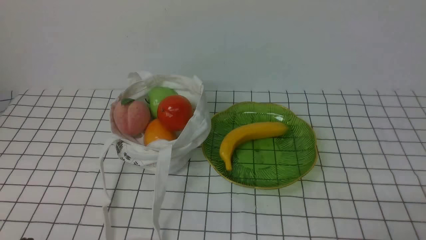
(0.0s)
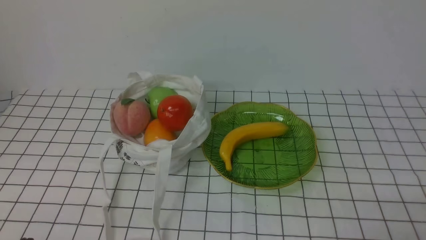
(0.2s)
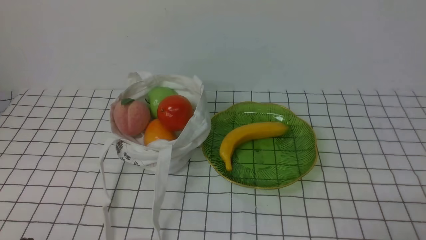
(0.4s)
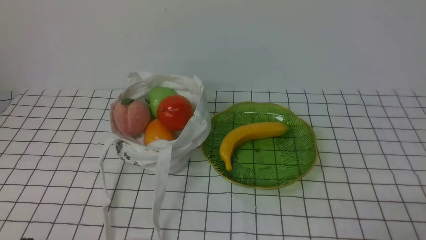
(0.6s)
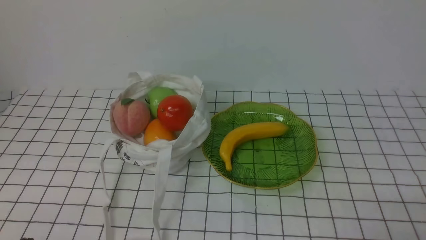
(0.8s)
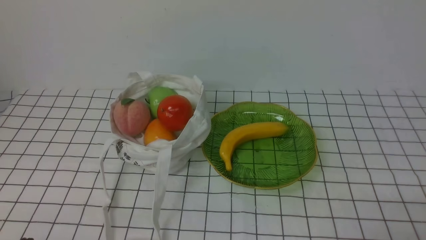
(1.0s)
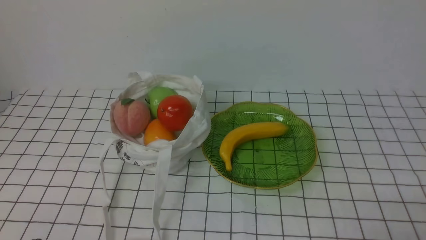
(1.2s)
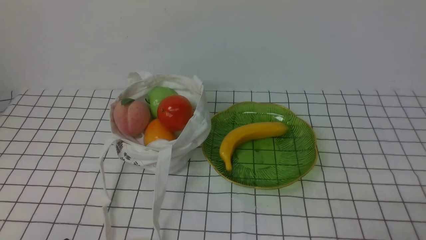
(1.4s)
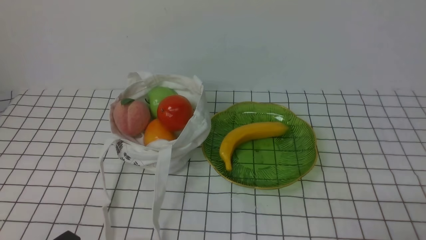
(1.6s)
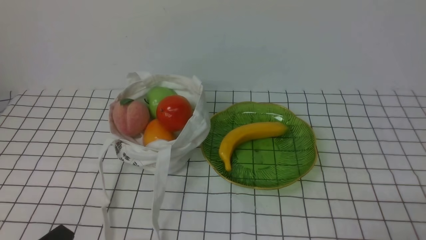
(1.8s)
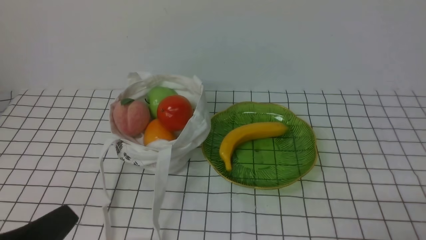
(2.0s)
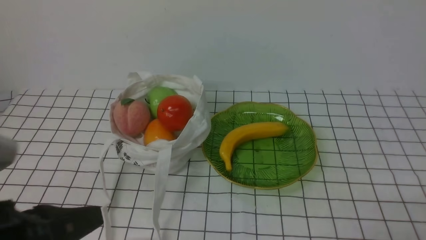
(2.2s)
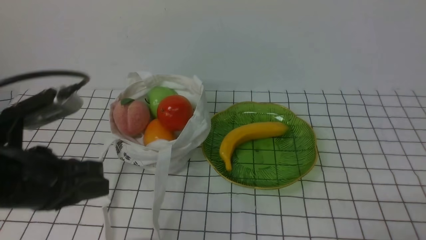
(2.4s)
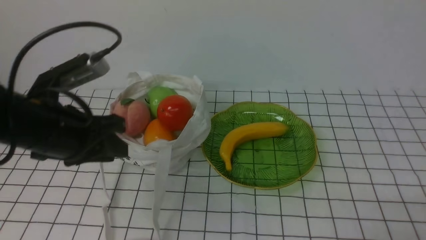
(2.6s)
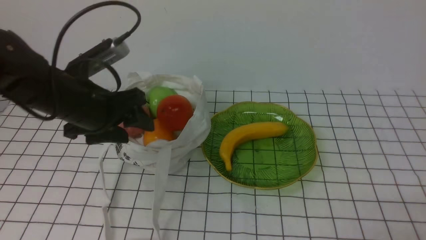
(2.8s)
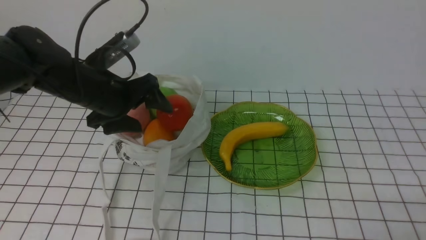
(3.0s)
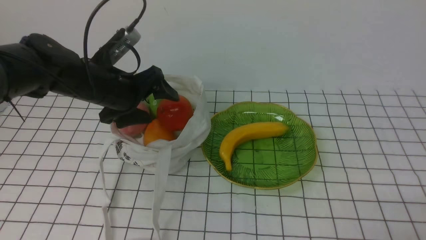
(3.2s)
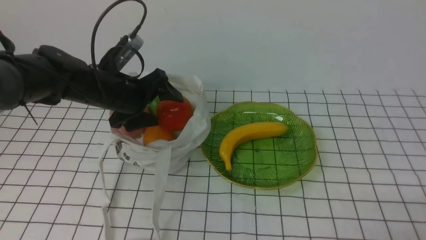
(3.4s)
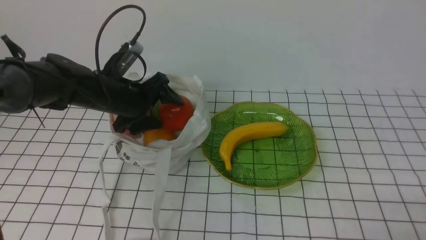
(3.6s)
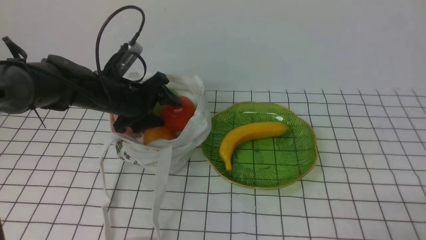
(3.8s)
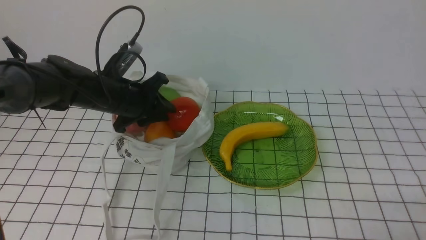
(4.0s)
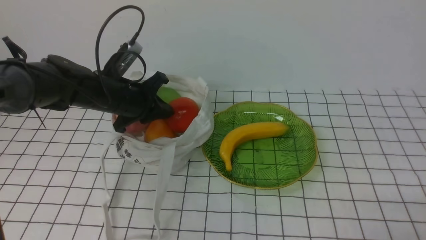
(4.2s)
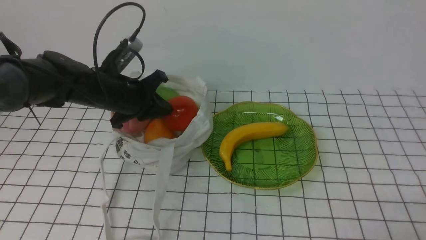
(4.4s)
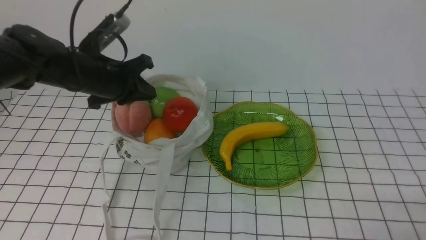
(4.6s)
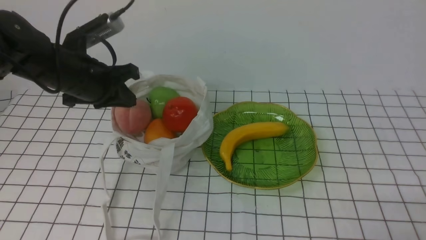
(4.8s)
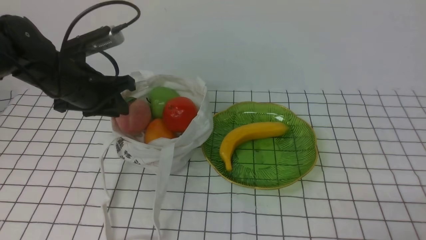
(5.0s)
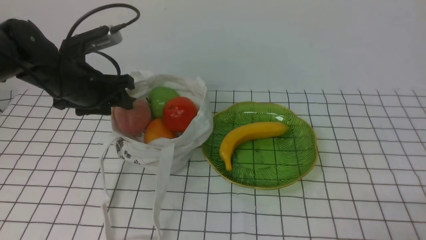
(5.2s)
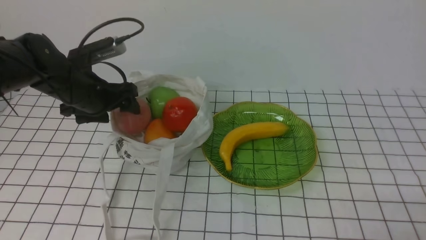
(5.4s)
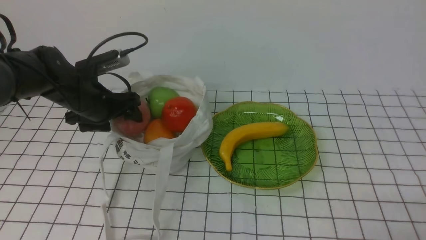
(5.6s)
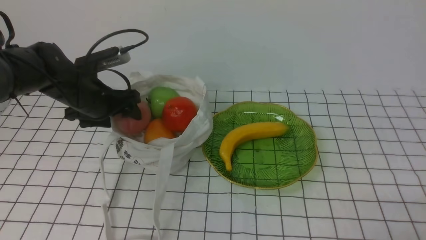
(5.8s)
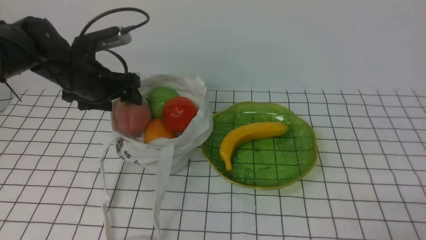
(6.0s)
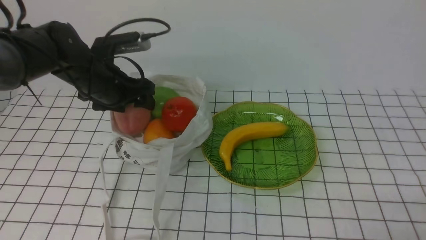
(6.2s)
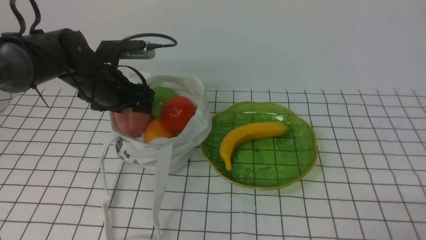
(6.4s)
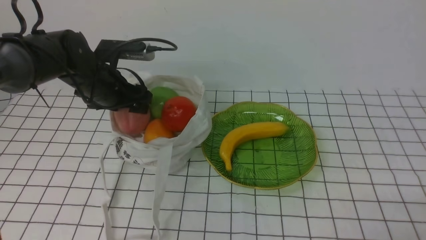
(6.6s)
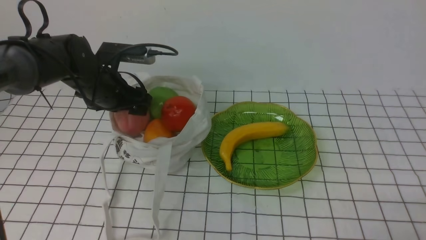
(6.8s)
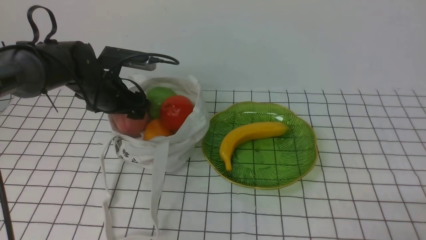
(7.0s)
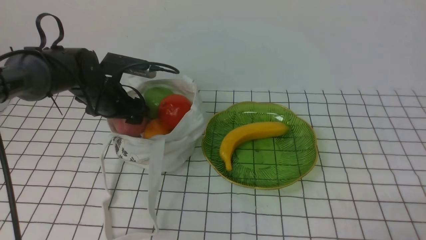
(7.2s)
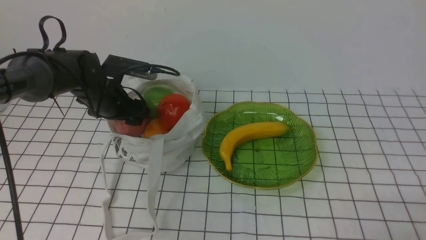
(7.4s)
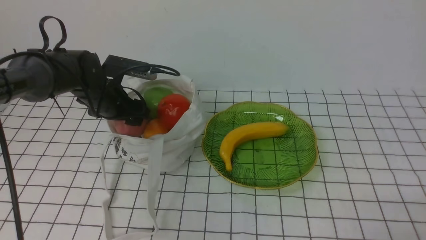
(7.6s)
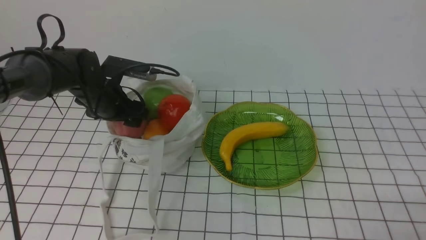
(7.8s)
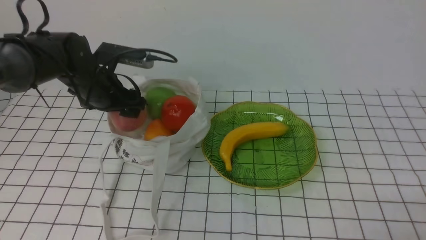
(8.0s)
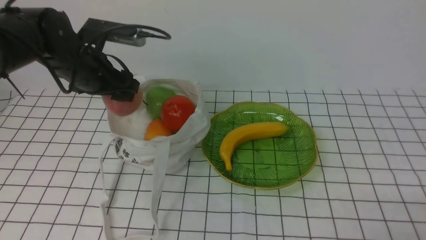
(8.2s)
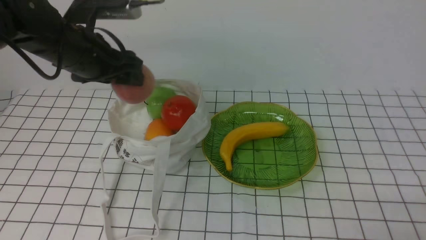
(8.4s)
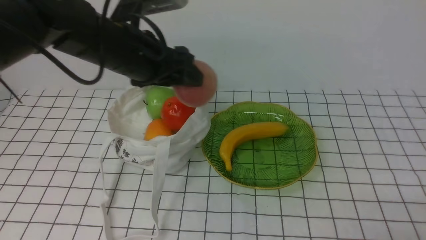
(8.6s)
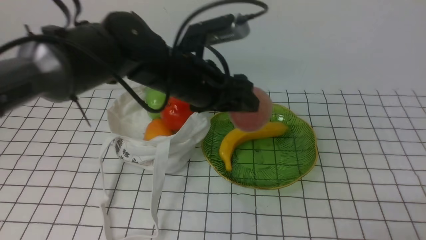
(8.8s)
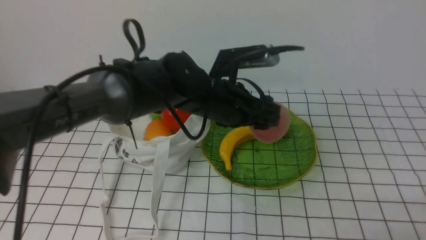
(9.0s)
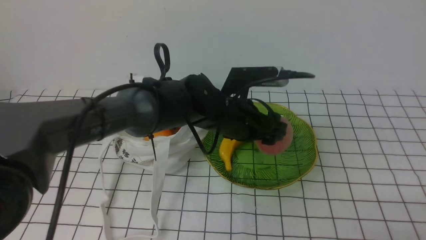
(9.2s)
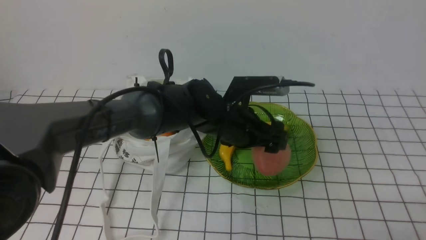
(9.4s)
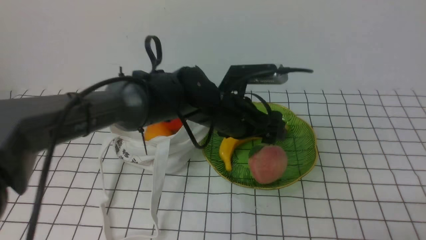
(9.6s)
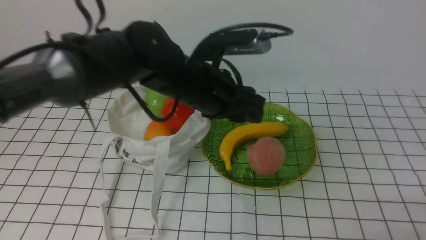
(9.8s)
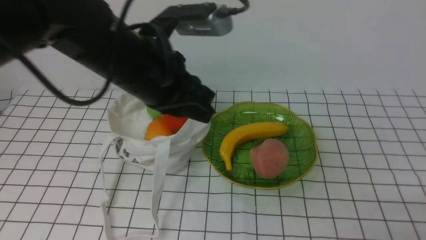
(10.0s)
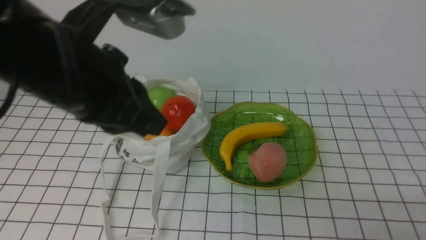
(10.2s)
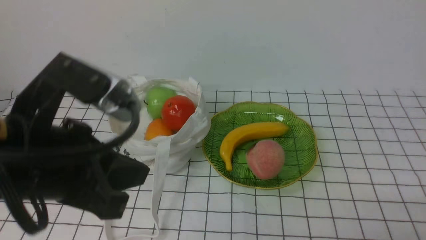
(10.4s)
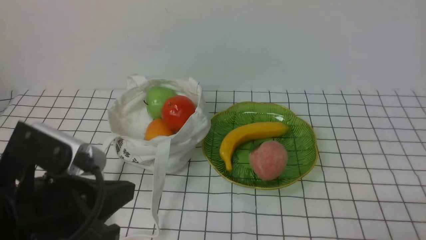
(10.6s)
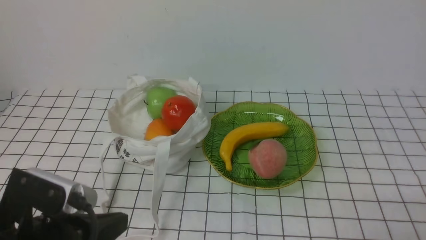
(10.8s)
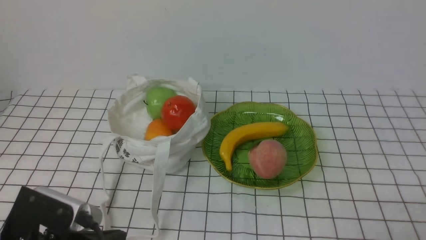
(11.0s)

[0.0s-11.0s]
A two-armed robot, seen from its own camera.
Step, 0.0s to 8.0s: use the left arm to grab a peach from the bag.
Step, 8.2s to 9.6s: use the left arm to put the peach into the empty plate on the right.
1.6s to 3.2s: The left gripper shifts about 30 cm forward, and opens.
3.2s to 4.8s: The left gripper closes up.
4.8s to 6.2s: The left gripper opens.
6.2s to 7.8s: The grippers stay close to where they were, moving slightly.
7.8s to 9.4s: The left gripper is displaced to the right by approximately 20 cm.
9.4s to 11.0s: The left gripper goes some 30 cm backward and to the left, and closes.

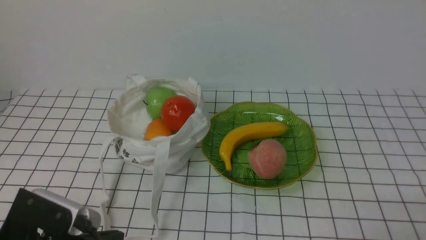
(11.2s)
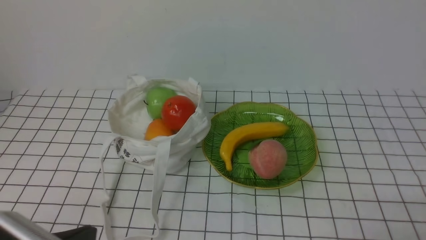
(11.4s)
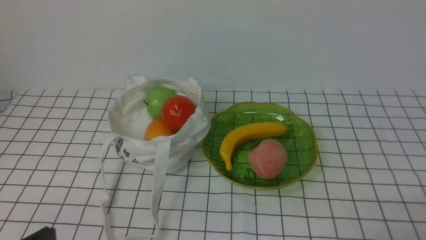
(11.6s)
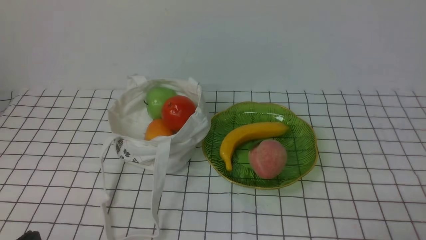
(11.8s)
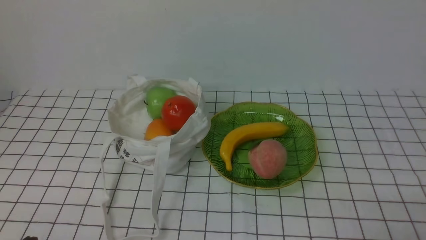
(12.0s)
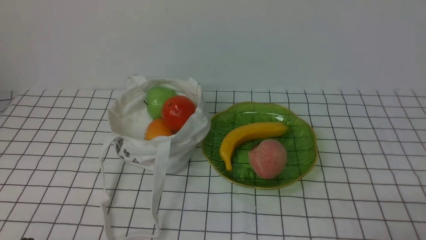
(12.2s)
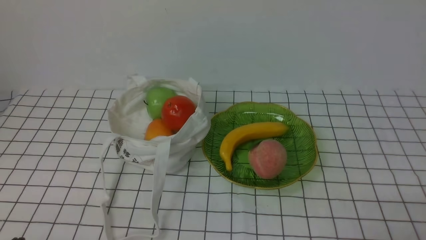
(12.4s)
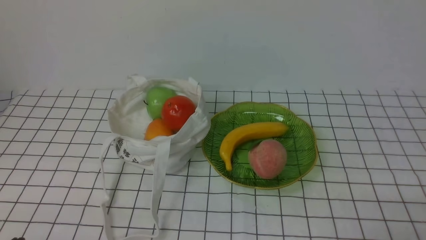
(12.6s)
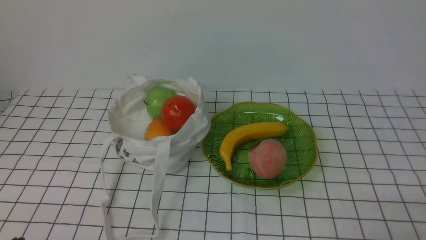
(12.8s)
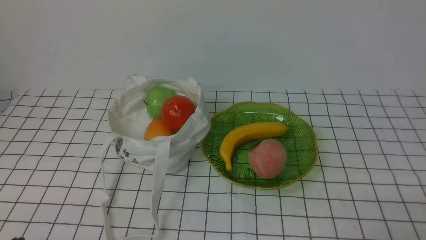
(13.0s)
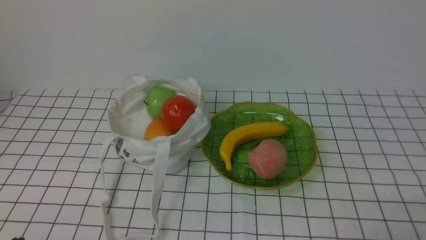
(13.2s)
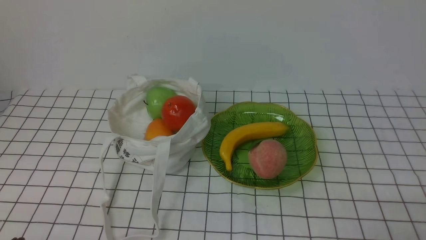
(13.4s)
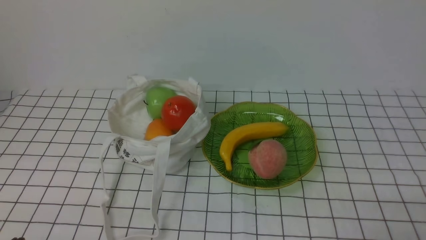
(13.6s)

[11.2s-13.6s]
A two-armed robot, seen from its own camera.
11.2s to 12.4s: The left gripper moves to the left, backward and downward, some 10 cm.
12.4s to 13.6s: Both grippers stay about where they are.
